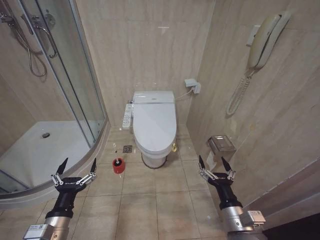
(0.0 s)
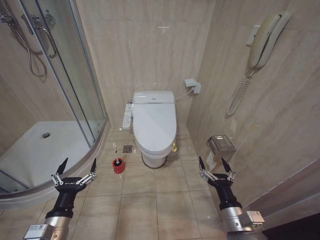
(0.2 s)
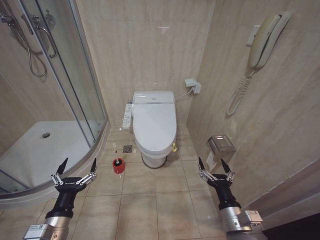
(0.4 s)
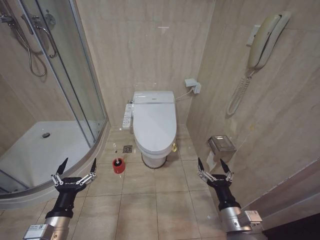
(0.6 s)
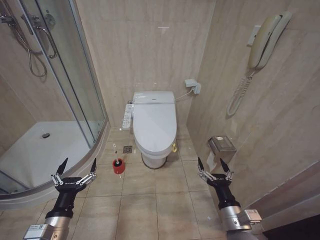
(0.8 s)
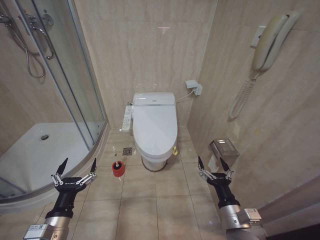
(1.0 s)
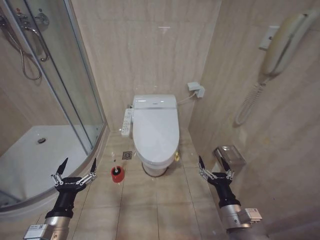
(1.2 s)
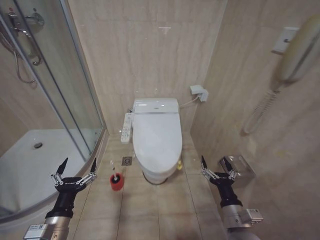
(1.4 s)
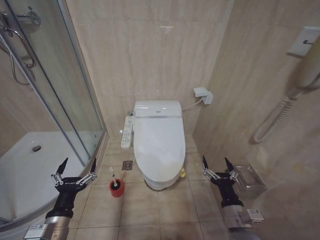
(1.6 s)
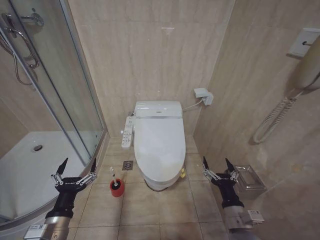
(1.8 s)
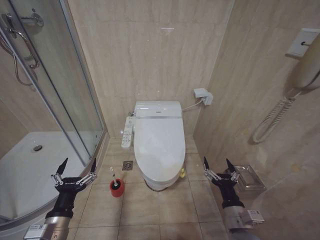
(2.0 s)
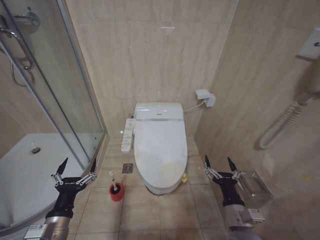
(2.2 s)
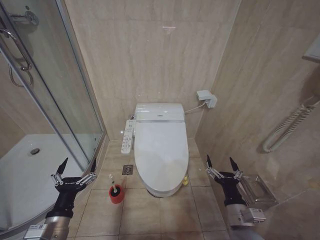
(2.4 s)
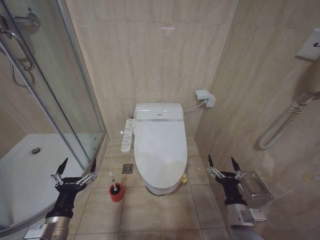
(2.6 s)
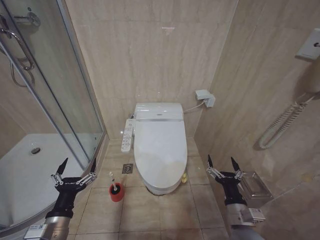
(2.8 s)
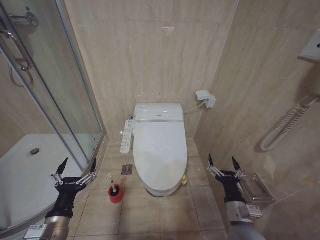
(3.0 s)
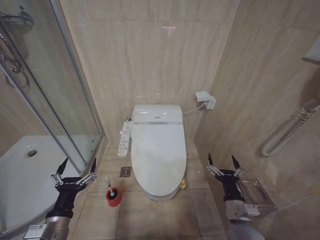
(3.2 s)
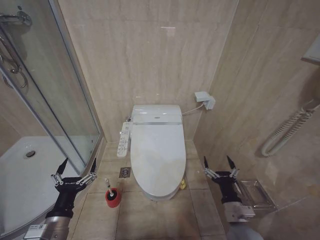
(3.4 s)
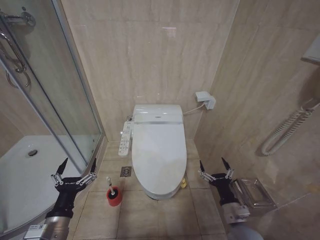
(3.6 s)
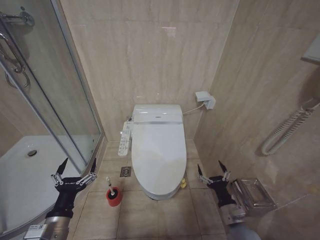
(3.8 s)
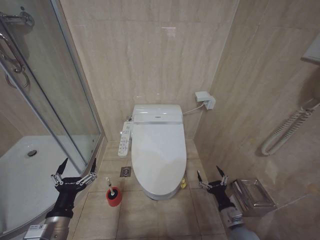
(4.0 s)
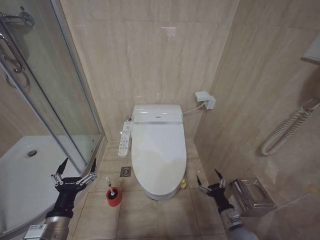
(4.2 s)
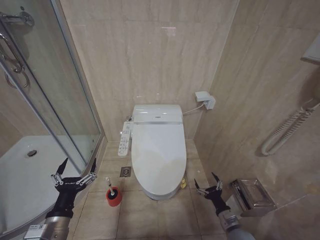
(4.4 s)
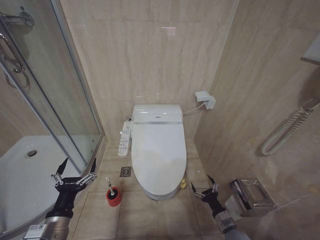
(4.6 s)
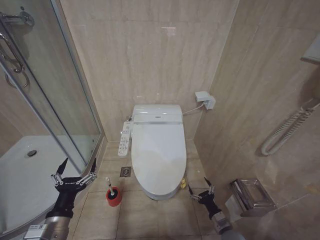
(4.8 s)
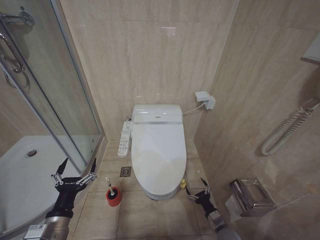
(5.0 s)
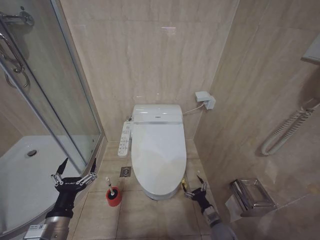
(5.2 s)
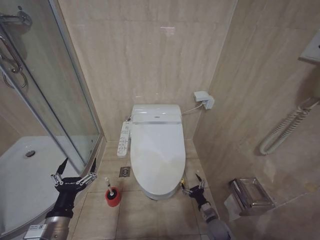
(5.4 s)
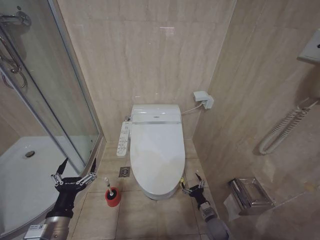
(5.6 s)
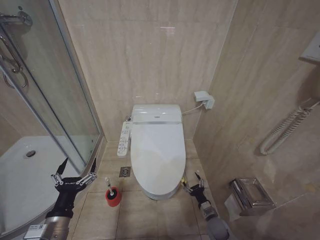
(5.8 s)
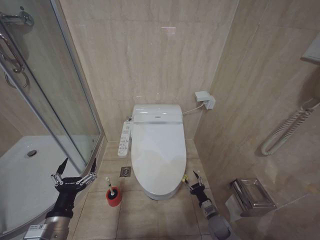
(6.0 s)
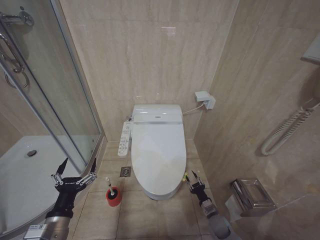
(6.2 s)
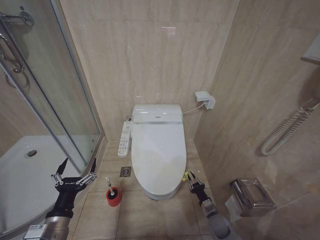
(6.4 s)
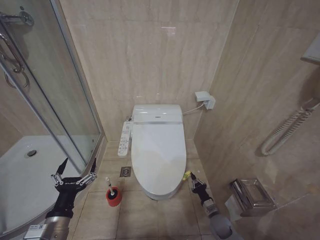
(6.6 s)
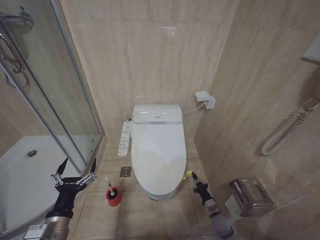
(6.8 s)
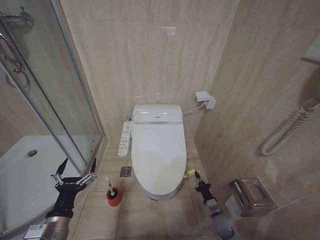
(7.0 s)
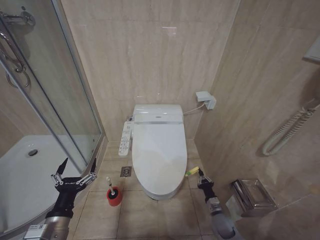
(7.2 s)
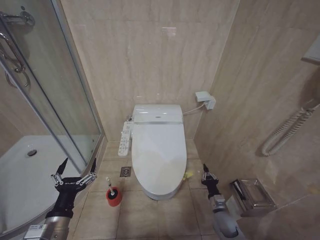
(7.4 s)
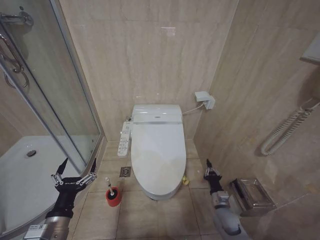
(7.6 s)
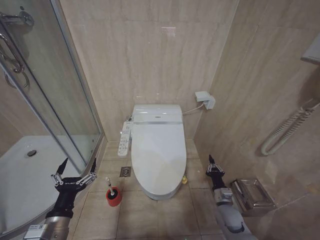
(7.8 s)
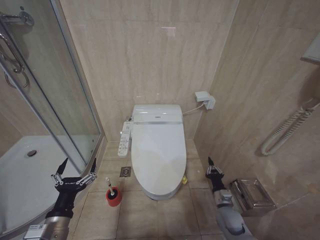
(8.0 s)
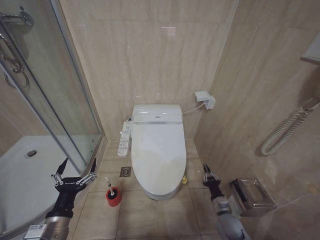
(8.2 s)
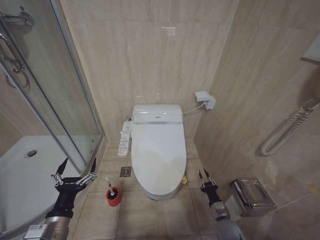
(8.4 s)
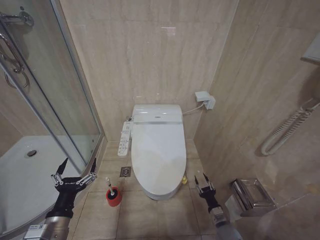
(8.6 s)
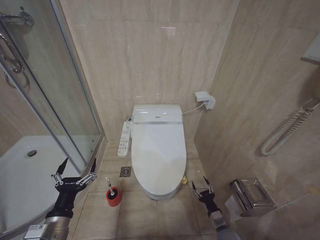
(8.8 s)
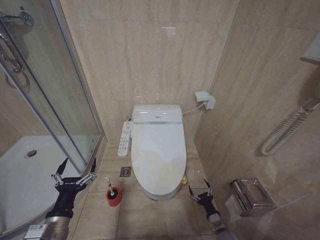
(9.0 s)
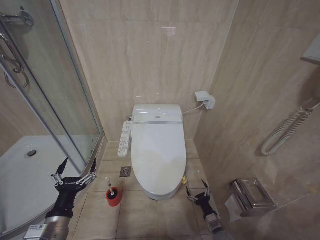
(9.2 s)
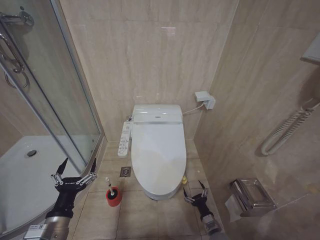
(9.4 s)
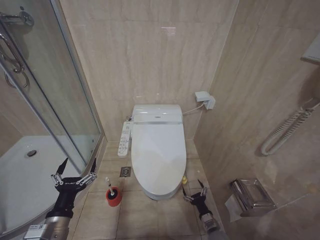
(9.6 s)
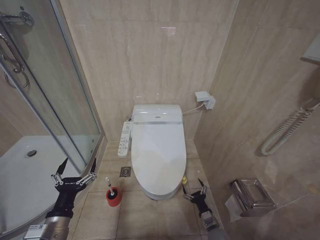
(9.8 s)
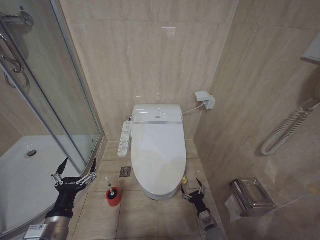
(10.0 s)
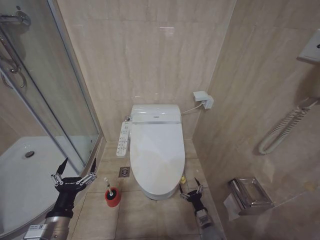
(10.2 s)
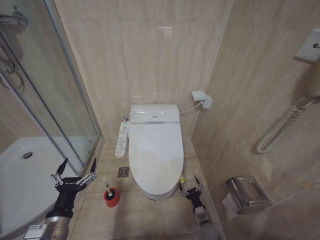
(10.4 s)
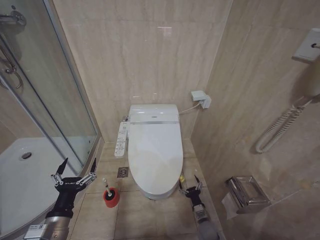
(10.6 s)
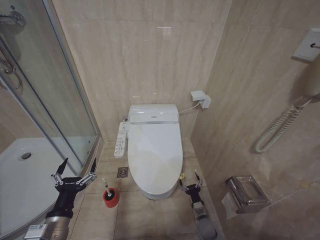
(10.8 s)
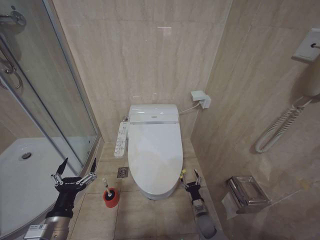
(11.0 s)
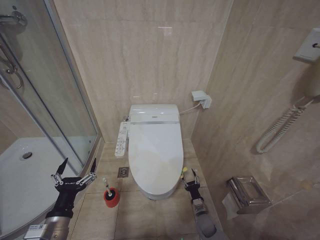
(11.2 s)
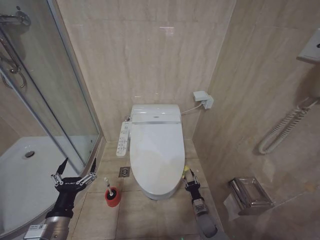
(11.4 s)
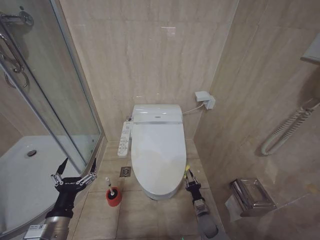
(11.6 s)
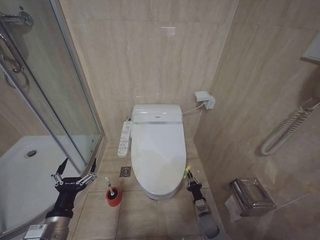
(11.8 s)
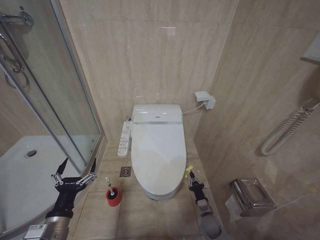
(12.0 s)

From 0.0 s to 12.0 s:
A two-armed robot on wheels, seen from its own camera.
Task of the whole recording: Open the toilet lid, clean the toilet bowl with a toilet brush, close the toilet lid, and flush.
From 1.6 s to 3.0 s: There are only small adjustments of the grippers.
From 3.0 s to 4.4 s: The right gripper travels downward and to the right by approximately 15 cm.
From 4.4 s to 6.0 s: The right gripper goes about 10 cm downward and forward.
From 6.0 s to 7.6 s: The right gripper shifts some 10 cm upward, and closes up.
From 7.6 s to 9.0 s: The right gripper heads downward and backward, covering roughly 10 cm, and opens up.
From 9.0 s to 10.4 s: The right gripper heads to the left, covering some 5 cm.
From 10.4 s to 12.0 s: The right gripper closes its fingers.

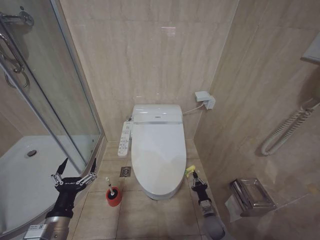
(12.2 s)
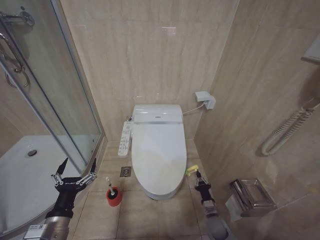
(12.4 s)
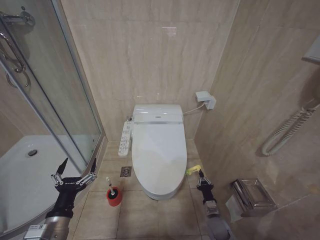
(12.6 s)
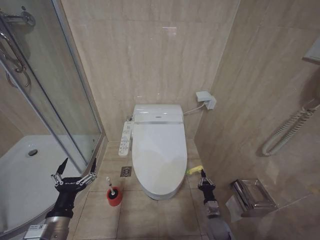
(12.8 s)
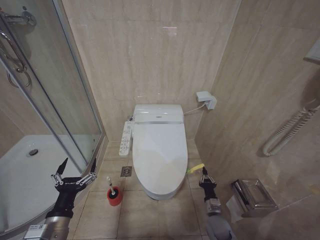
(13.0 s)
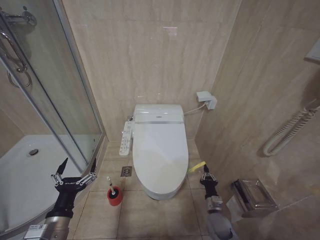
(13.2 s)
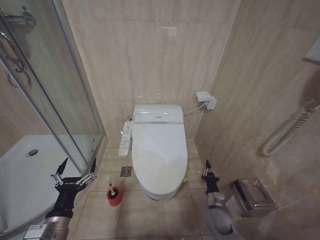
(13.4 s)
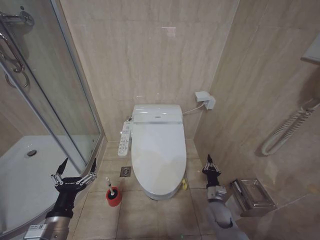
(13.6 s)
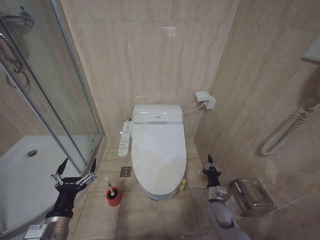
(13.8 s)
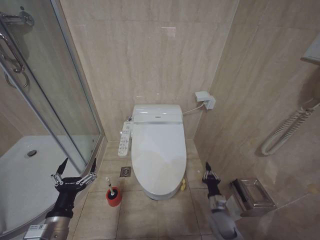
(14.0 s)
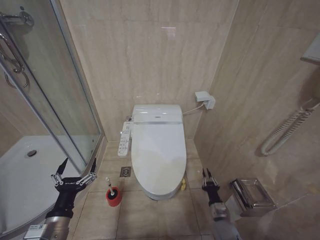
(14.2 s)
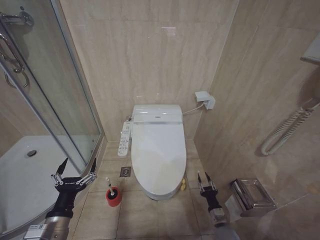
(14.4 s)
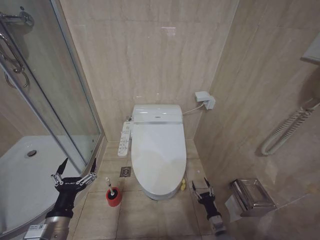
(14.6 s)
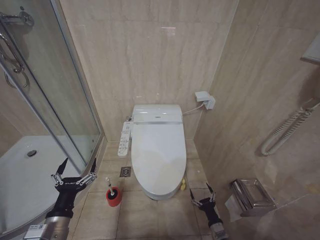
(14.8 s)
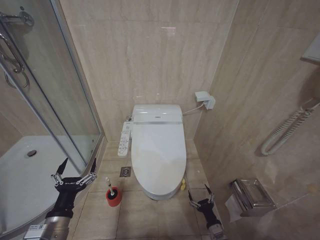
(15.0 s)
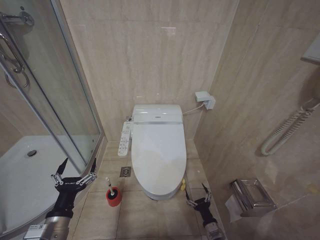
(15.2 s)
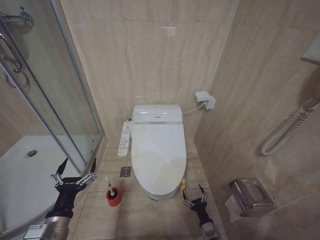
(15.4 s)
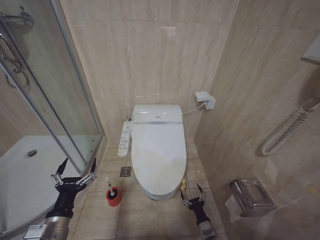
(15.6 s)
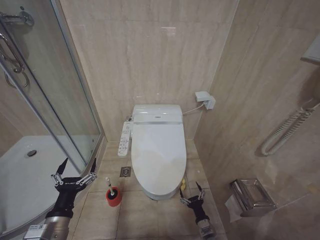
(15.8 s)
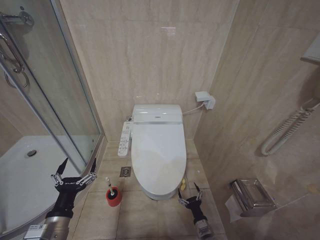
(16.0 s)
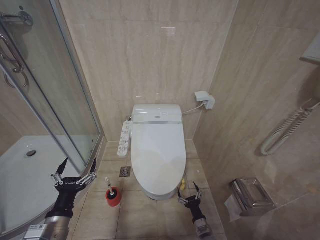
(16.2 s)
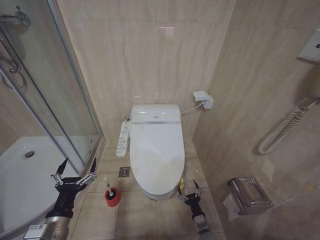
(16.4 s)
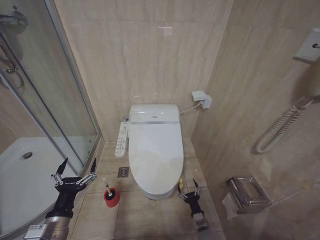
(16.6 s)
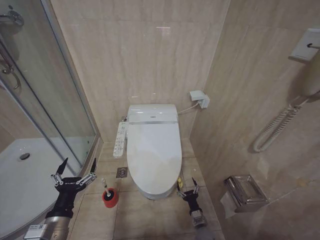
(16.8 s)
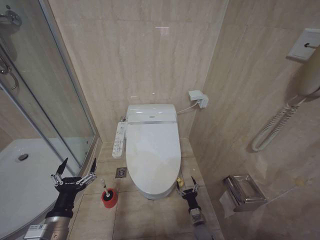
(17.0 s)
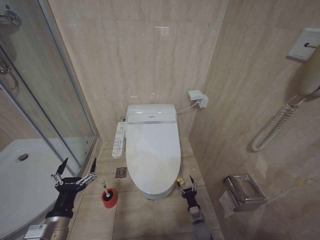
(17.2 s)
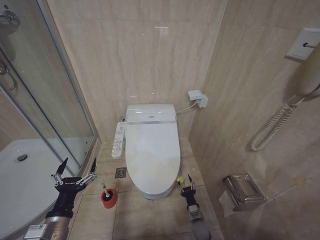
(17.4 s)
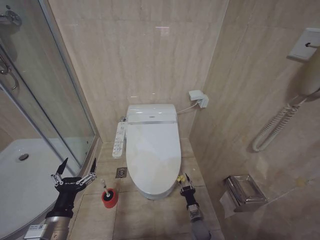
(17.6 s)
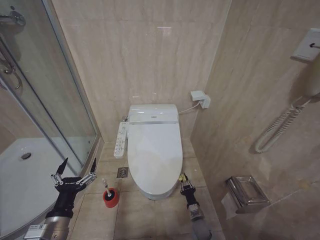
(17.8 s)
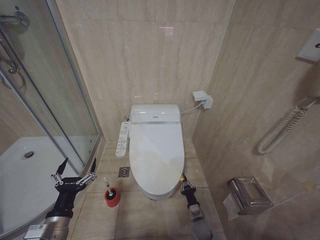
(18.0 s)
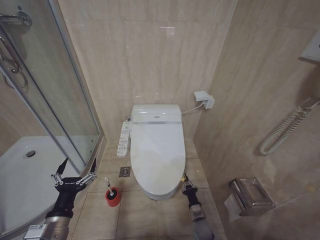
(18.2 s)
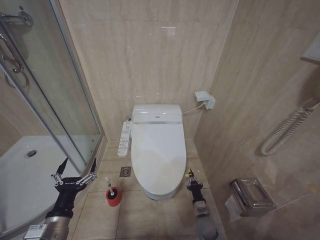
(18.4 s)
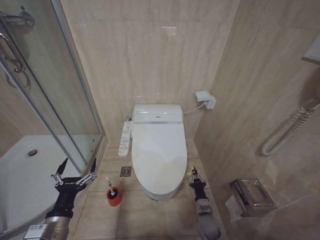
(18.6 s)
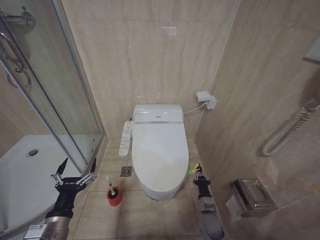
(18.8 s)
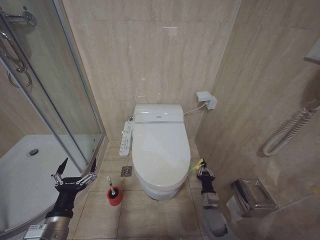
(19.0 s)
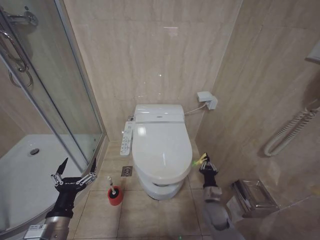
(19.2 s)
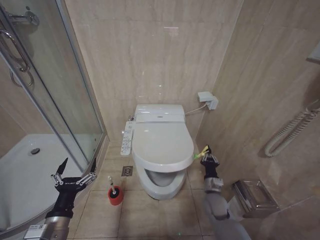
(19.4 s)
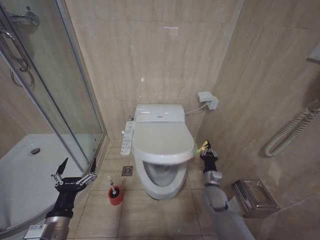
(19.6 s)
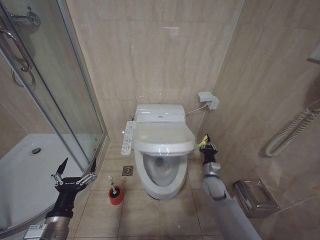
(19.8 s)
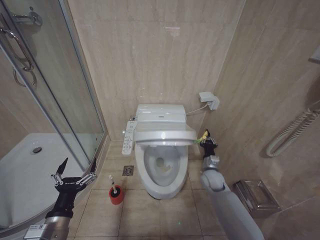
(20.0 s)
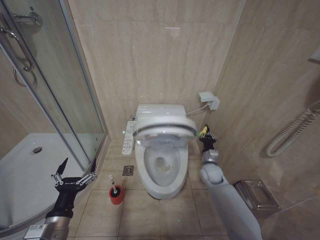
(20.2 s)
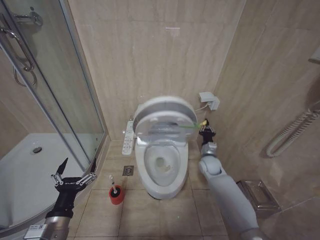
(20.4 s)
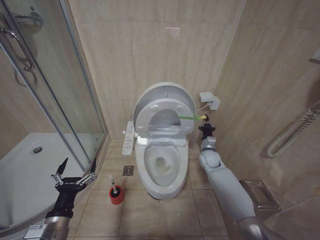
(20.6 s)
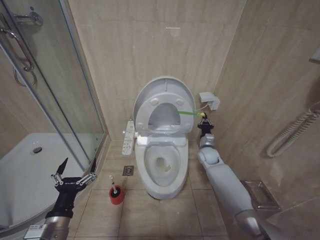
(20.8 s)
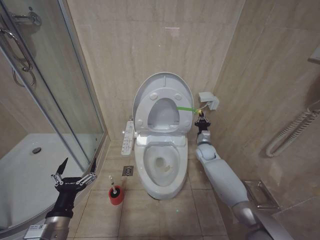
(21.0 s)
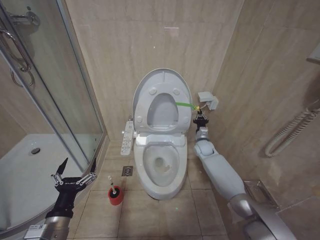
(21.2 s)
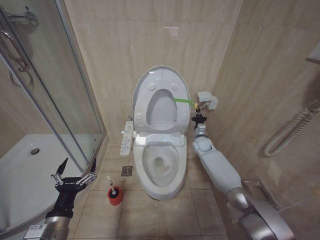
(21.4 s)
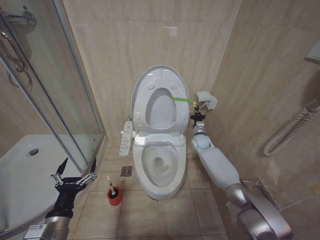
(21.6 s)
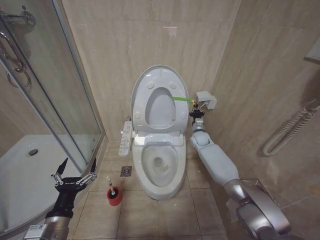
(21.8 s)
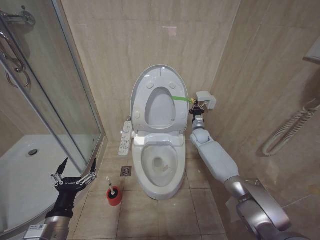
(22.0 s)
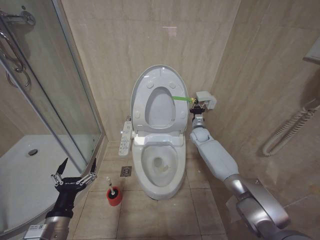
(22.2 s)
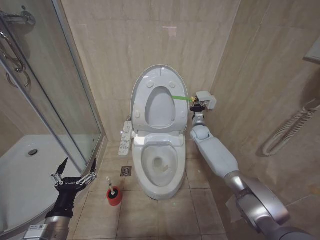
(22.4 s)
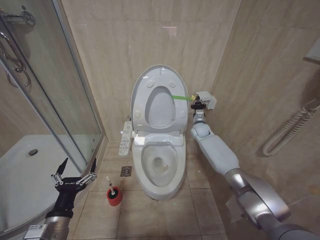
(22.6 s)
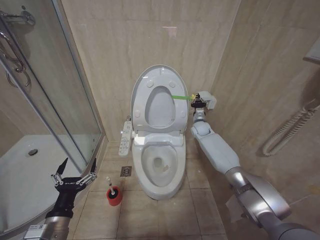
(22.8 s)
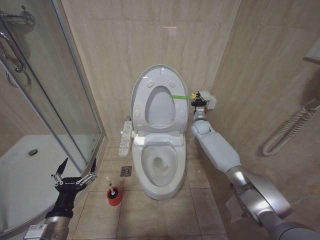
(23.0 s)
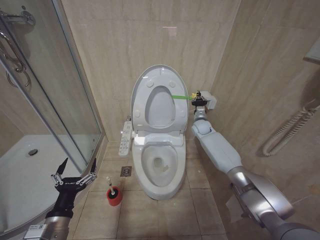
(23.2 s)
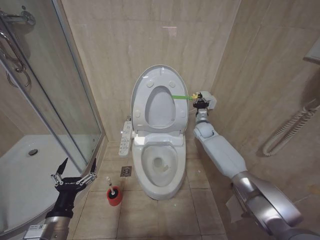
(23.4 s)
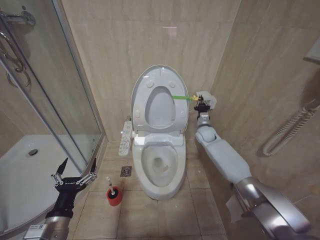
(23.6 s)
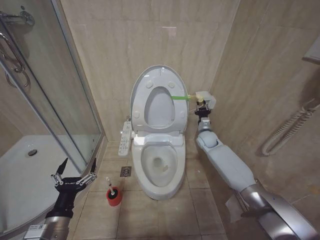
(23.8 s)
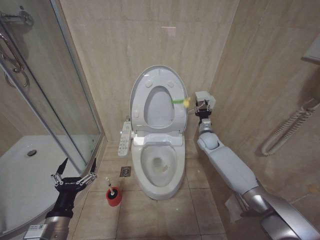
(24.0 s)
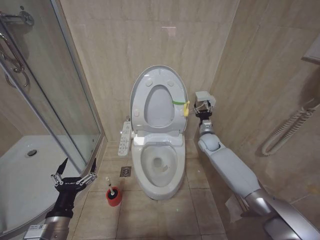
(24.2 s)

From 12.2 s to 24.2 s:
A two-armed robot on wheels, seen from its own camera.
Task of the whole recording: Open the toilet lid, clean the toilet bowl with a toilet brush, close the toilet lid, and flush.
From 12.2 s to 13.8 s: The right gripper moves upward, approximately 10 cm.
From 13.8 s to 15.2 s: The right gripper heads backward and downward, covering about 15 cm, and opens its fingers.
From 15.2 s to 16.6 s: The right gripper shifts by approximately 5 cm.
From 16.6 s to 18.2 s: The right gripper closes up.
From 18.2 s to 19.8 s: The right gripper goes about 20 cm upward and forward.
From 19.8 s to 21.2 s: The right gripper shifts approximately 20 cm forward.
From 21.2 s to 22.6 s: The right gripper shifts about 10 cm upward and forward.
From 22.6 s to 24.2 s: The right gripper is displaced backward by about 5 cm, and opens its fingers.
